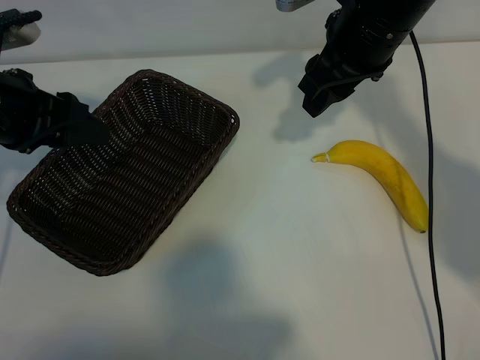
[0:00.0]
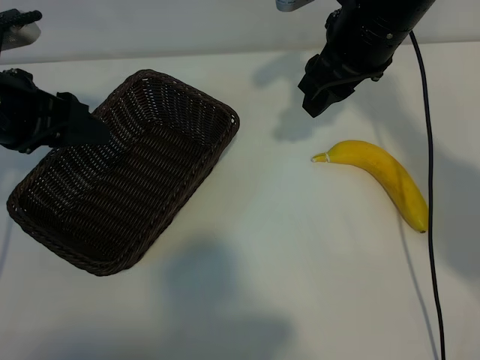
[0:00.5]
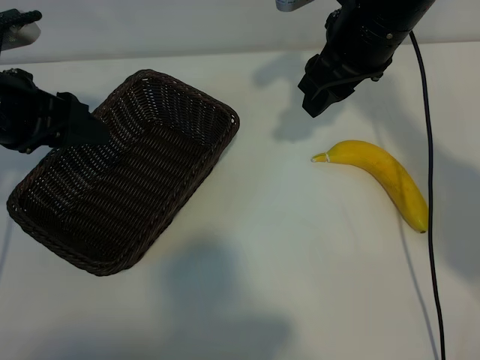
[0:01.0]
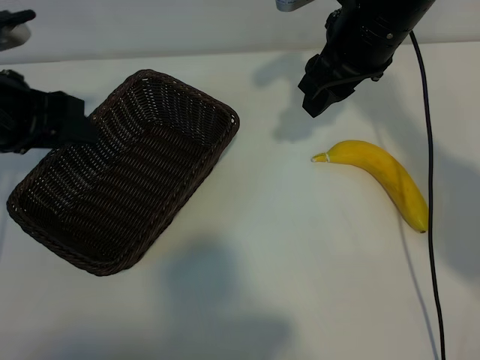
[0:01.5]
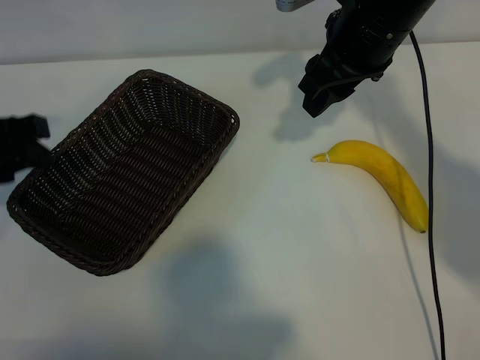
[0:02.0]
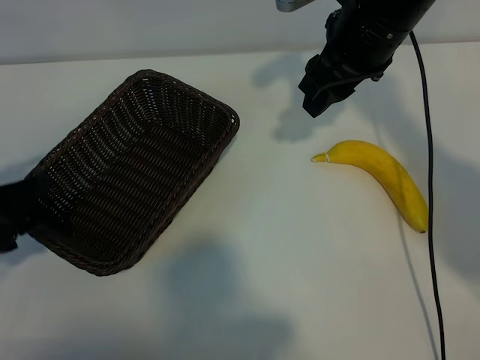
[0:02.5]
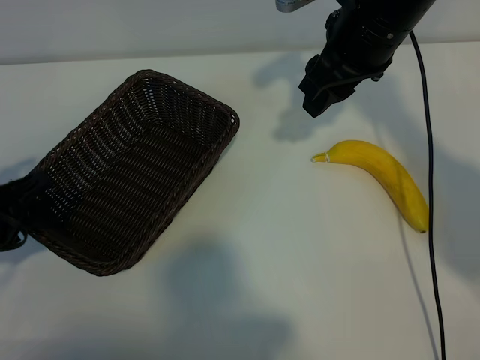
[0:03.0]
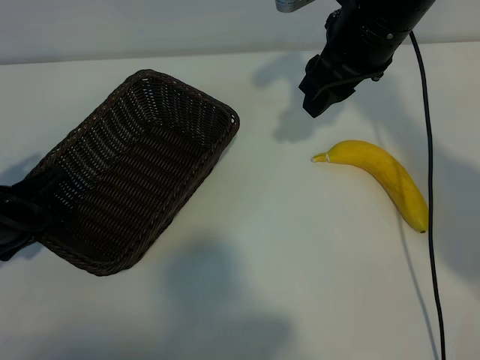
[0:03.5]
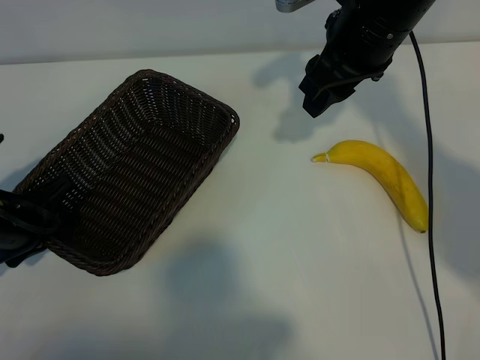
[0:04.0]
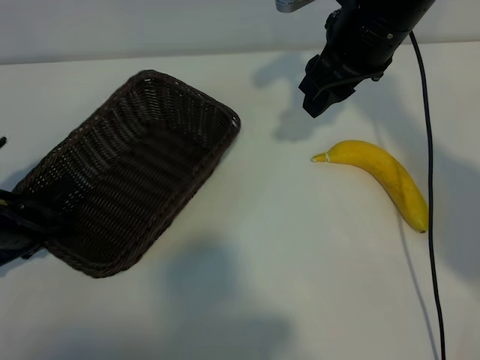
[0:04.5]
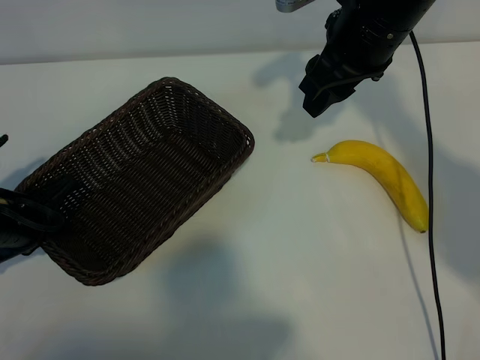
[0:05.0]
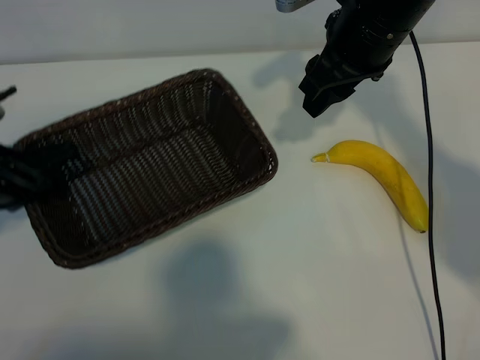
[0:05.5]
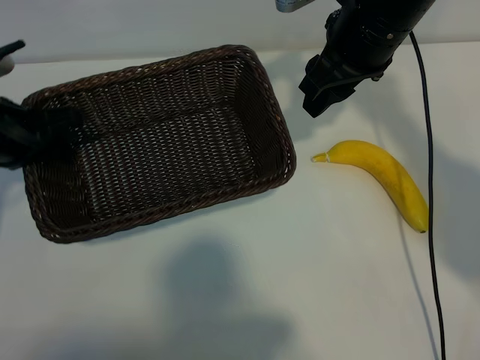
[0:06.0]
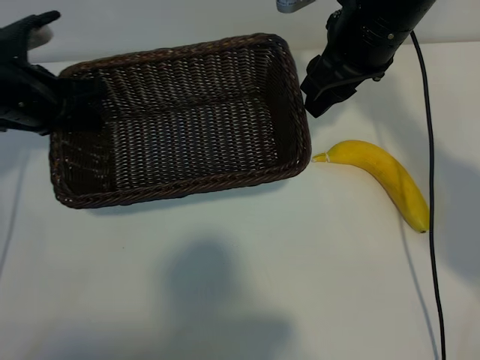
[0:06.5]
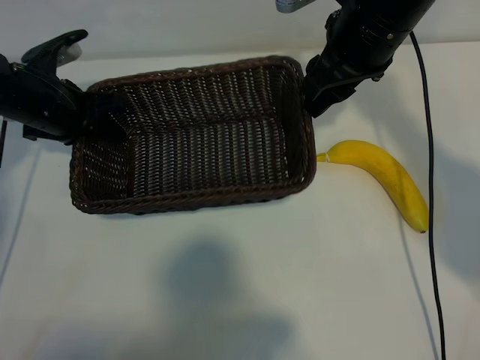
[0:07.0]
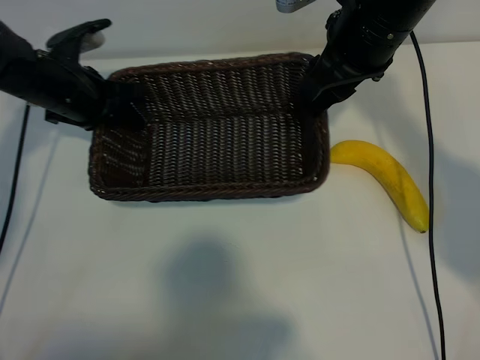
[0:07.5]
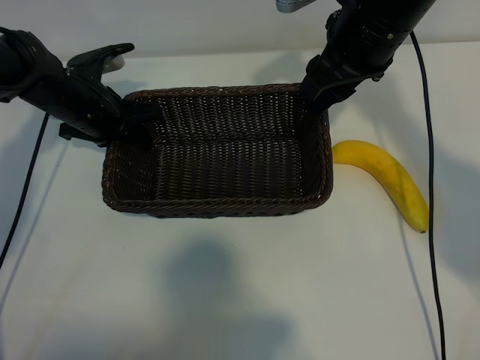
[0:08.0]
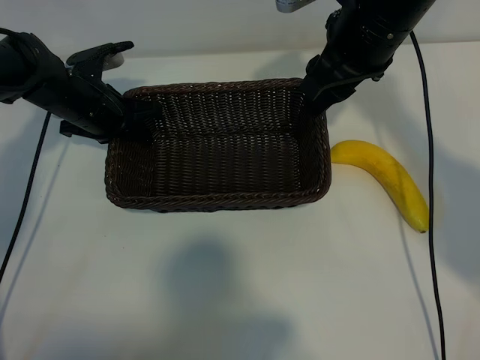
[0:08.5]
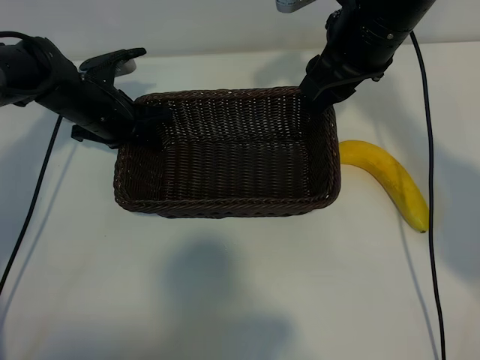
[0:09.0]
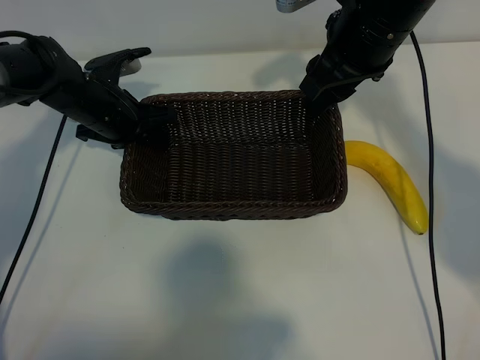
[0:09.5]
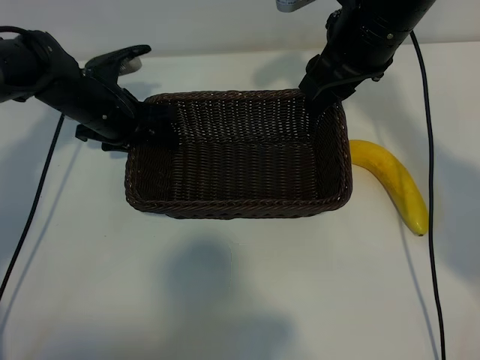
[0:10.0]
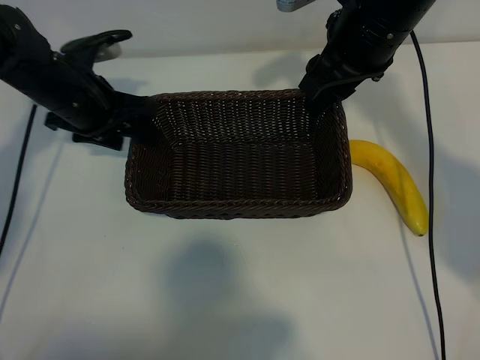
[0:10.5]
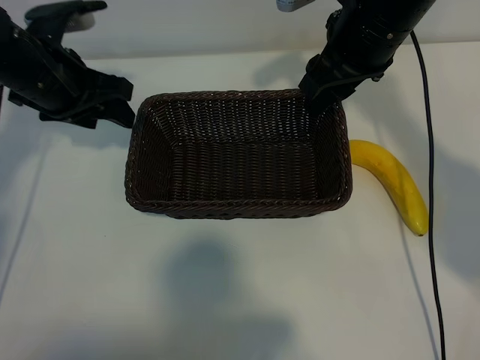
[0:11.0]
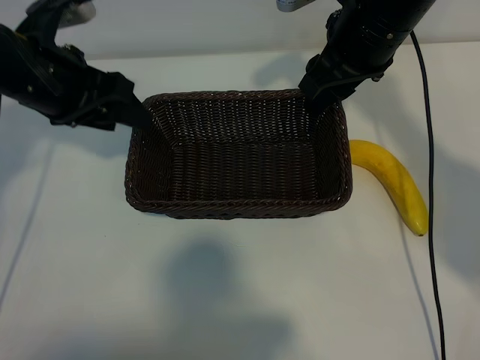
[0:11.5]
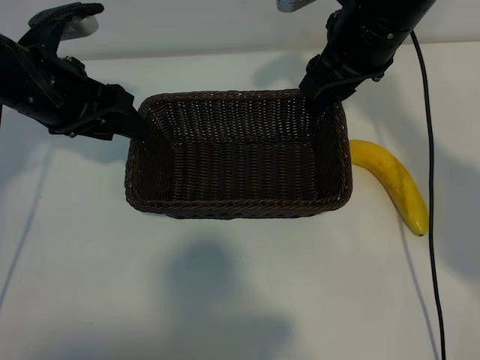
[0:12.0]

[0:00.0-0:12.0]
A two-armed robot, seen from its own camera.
Task of the whole recording: pick up the banana and put it into the basket.
Step, 0:01.5 to 0:04.5: Grasp the basket with the left gripper.
Step, 0:05.0 to 0:10.0: Place the basket in the center of the table with the left gripper.

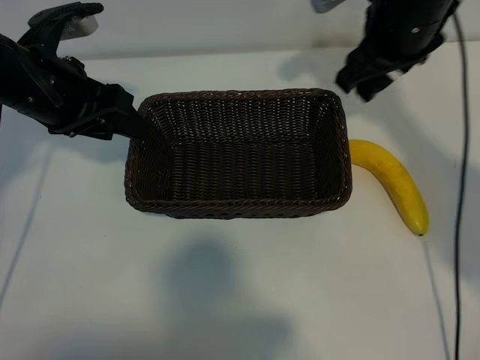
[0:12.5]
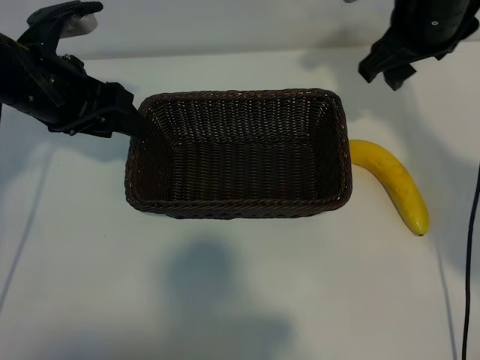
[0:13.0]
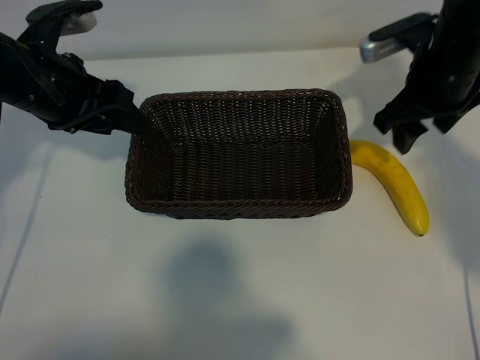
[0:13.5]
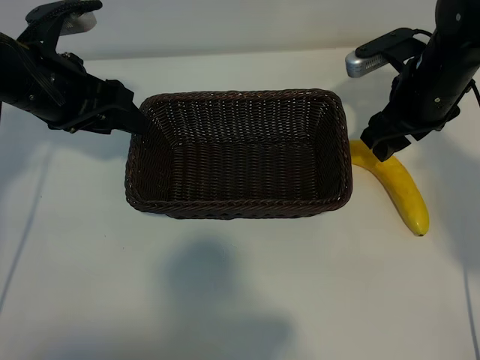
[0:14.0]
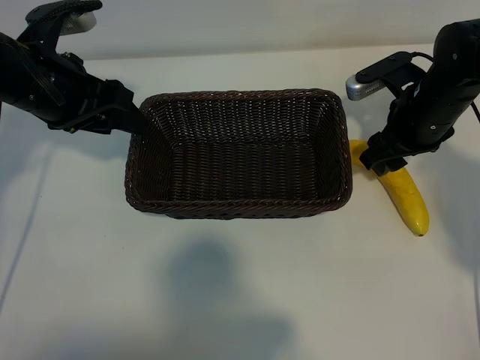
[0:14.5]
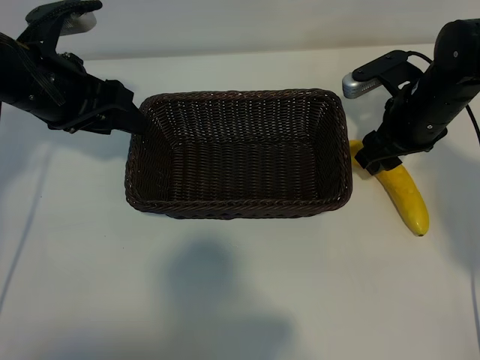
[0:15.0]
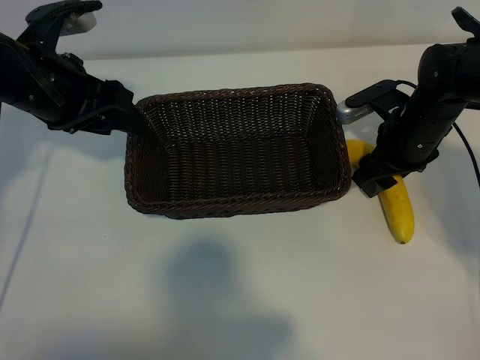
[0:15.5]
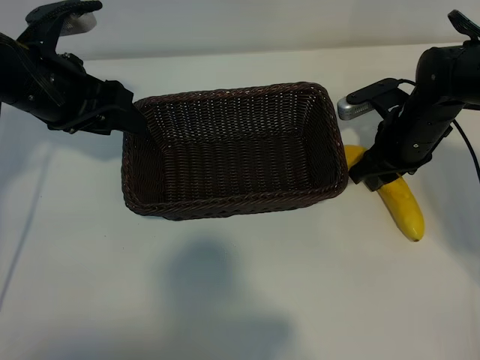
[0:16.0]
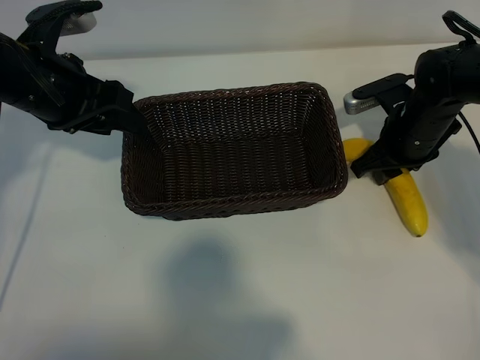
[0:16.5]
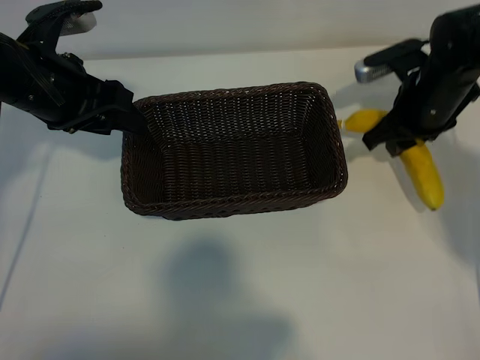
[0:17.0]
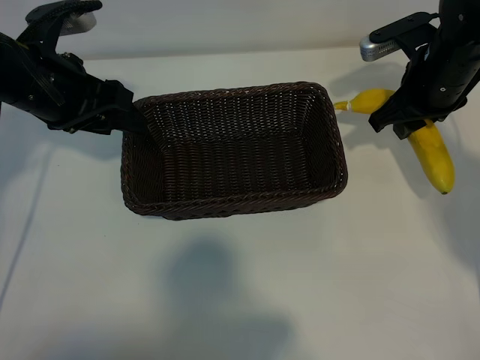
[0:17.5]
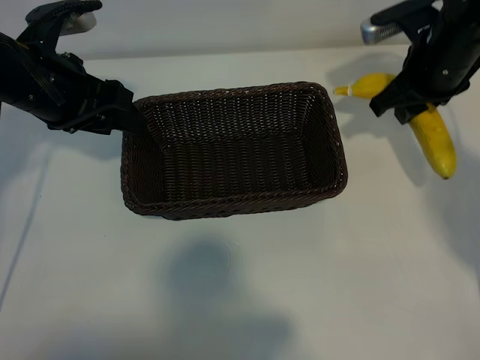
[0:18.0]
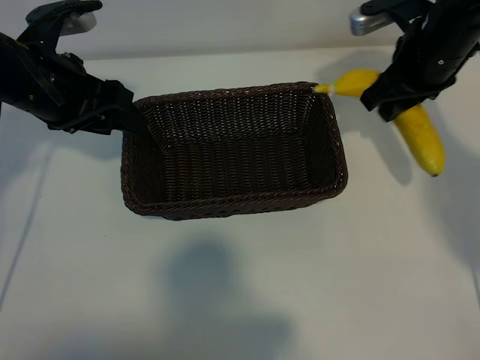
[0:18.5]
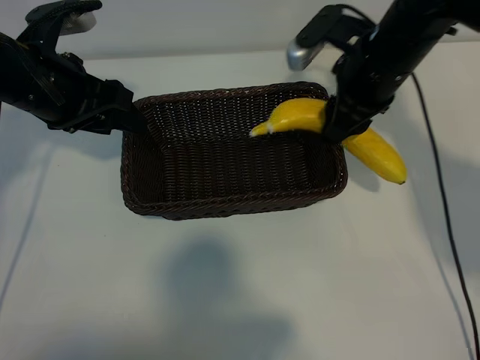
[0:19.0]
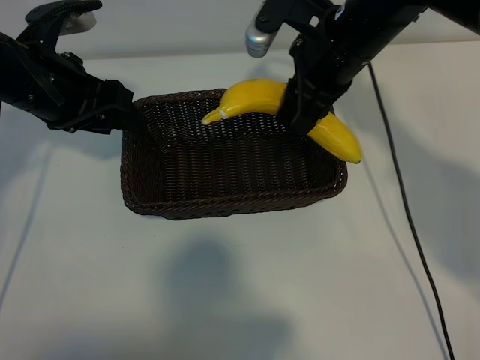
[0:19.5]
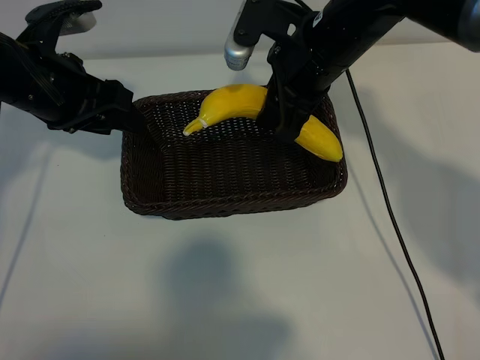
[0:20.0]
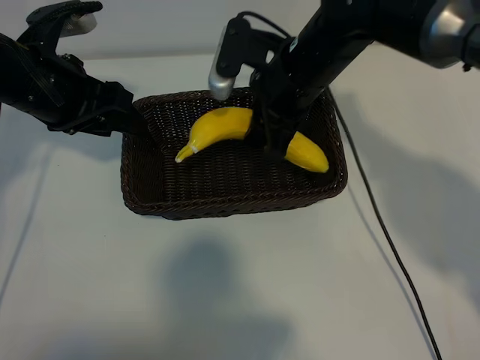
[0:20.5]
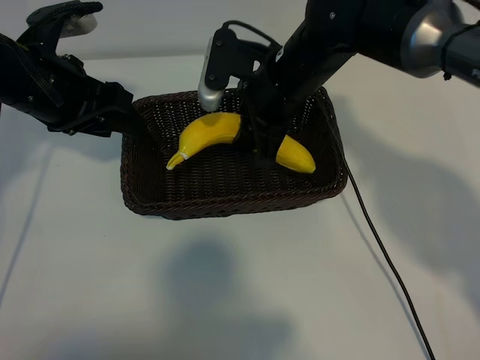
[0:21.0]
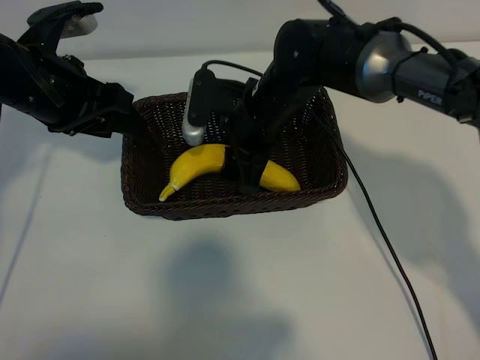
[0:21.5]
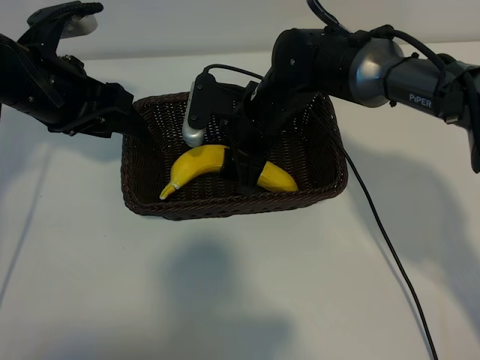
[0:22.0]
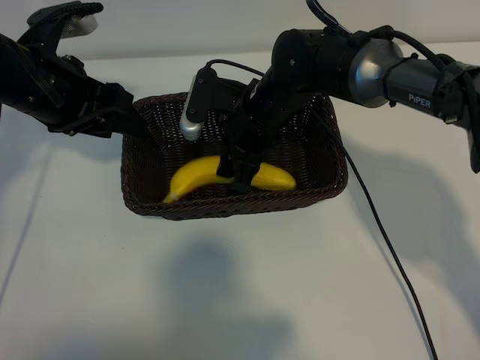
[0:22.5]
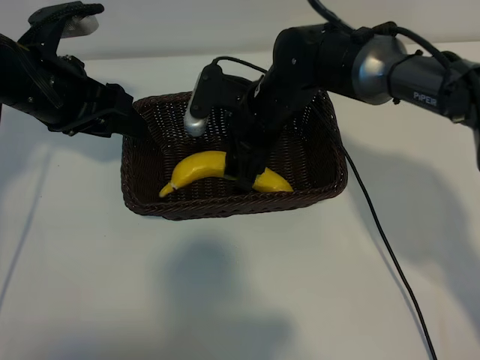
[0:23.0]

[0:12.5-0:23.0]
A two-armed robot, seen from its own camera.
Task of the whole recording: pick up the banana and put it into the basket.
Step, 0:12.5 to 0:15.5: Grasp the banana with right gripper.

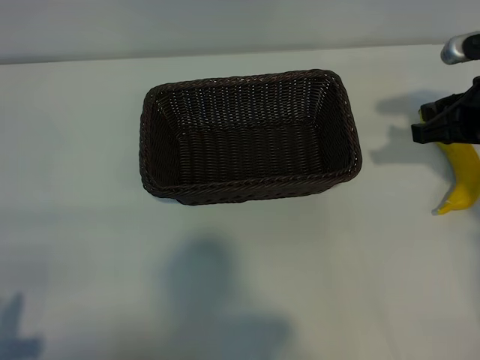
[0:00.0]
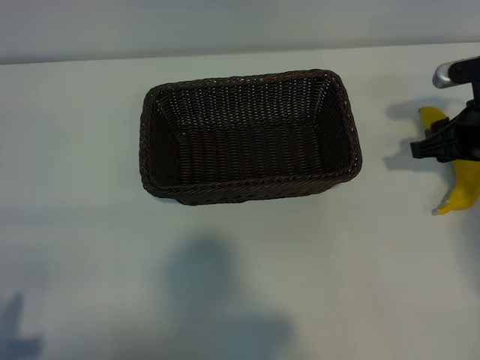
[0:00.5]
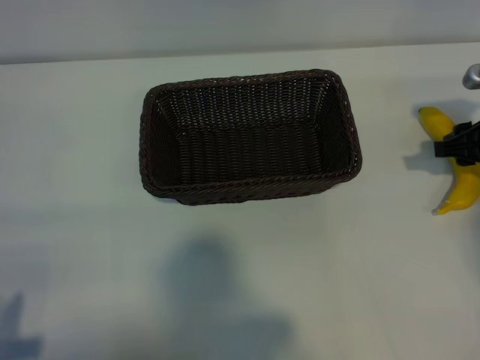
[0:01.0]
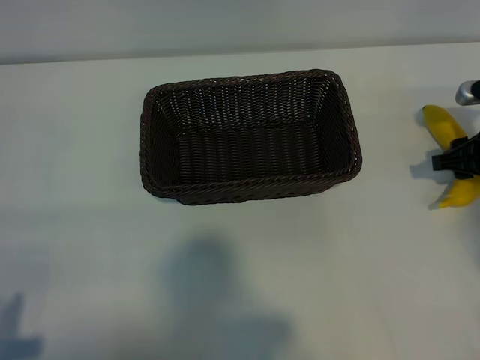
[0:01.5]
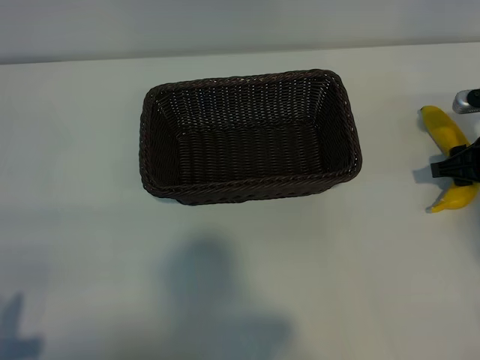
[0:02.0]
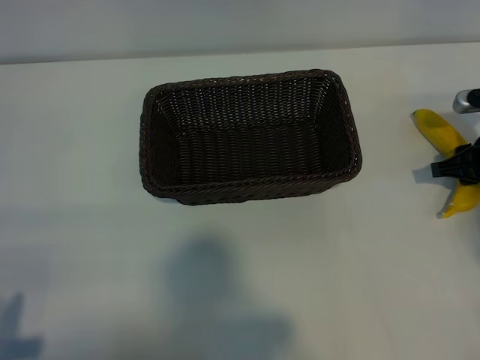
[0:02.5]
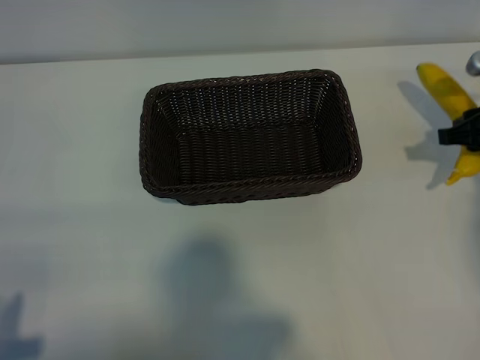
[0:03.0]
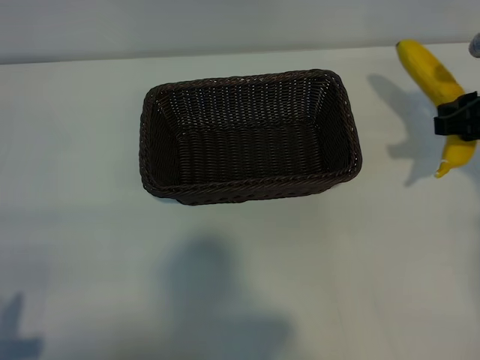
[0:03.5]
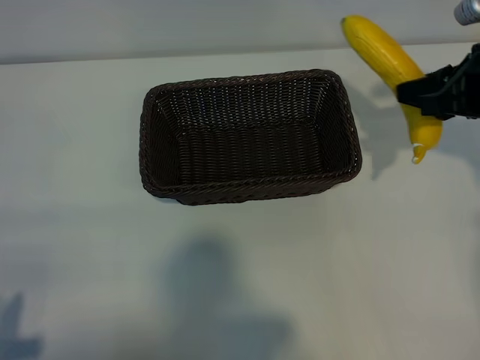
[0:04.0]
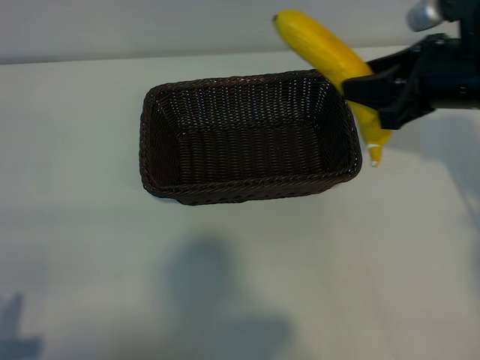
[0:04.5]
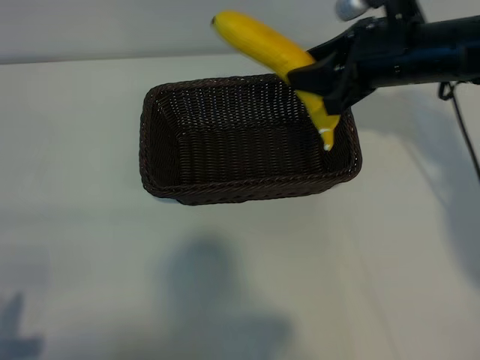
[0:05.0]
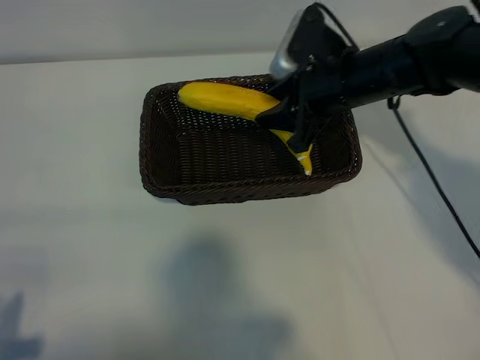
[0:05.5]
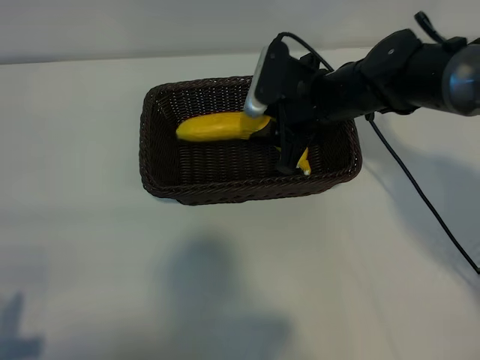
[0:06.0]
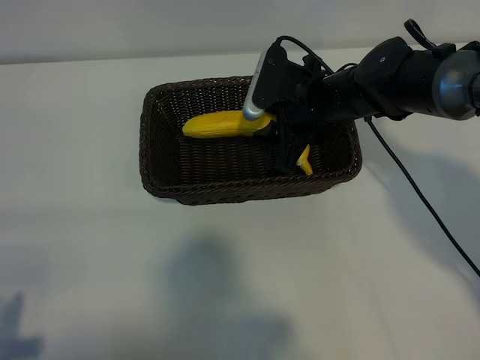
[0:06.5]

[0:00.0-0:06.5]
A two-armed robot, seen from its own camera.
Task of the whole recording: pick up the banana and put it into the basket.
Step, 0:00.0 to 0:02.0: Grasp the banana with right gripper.
